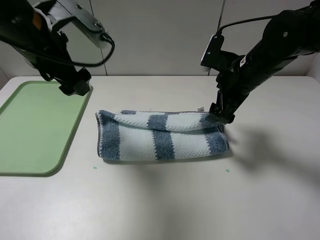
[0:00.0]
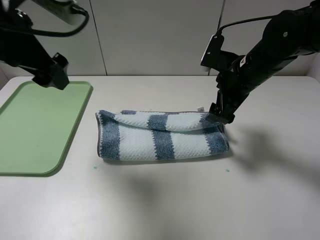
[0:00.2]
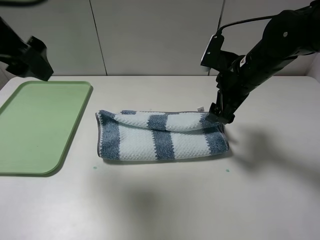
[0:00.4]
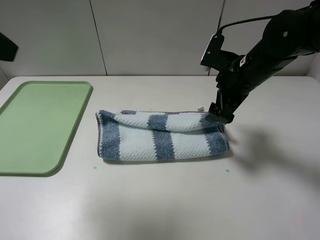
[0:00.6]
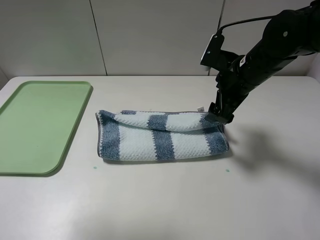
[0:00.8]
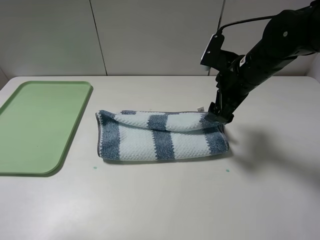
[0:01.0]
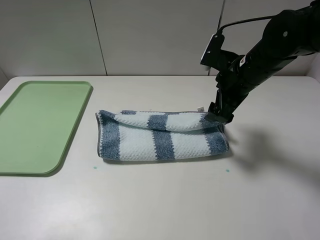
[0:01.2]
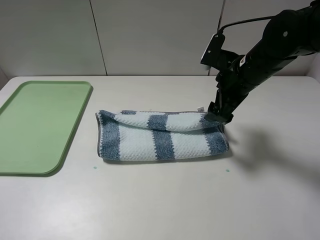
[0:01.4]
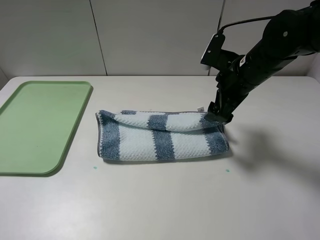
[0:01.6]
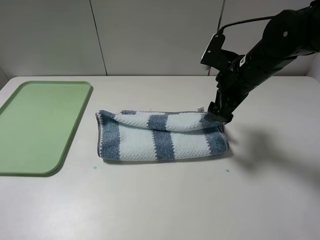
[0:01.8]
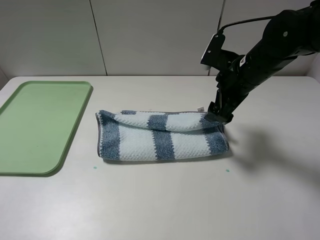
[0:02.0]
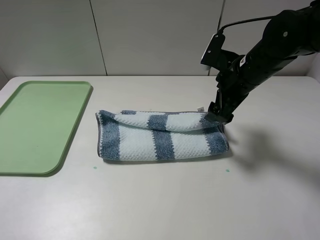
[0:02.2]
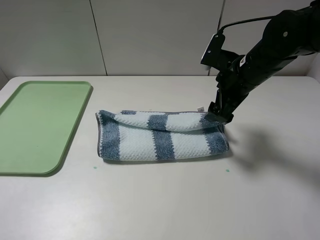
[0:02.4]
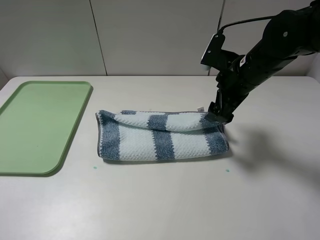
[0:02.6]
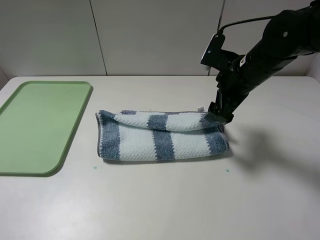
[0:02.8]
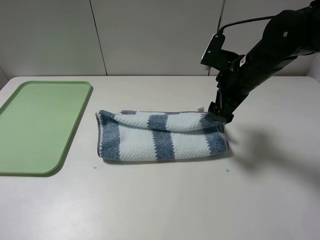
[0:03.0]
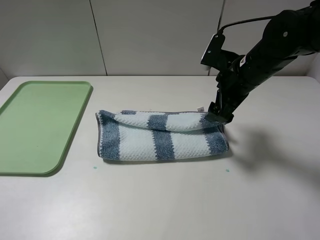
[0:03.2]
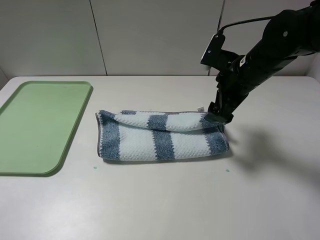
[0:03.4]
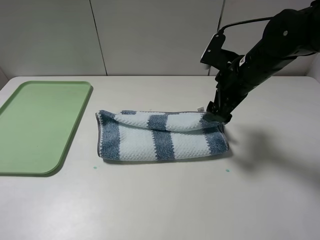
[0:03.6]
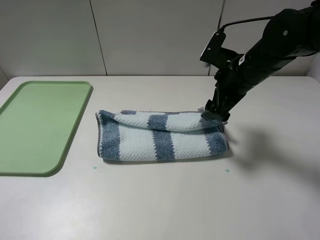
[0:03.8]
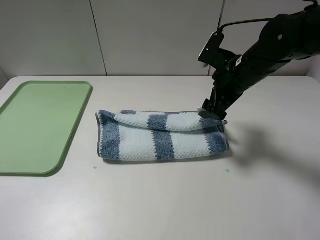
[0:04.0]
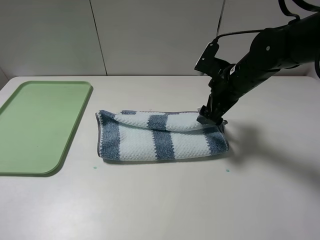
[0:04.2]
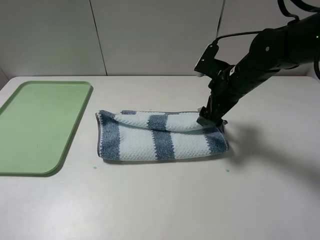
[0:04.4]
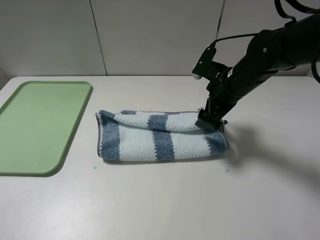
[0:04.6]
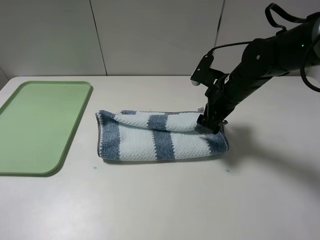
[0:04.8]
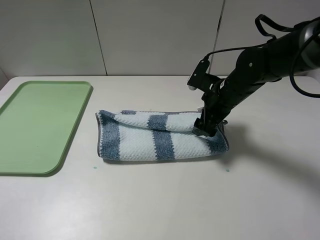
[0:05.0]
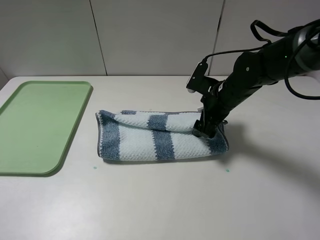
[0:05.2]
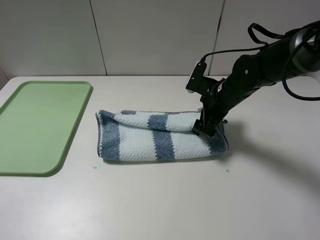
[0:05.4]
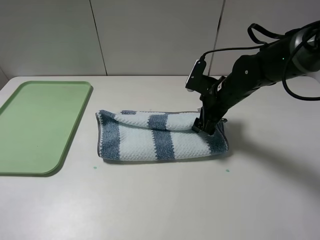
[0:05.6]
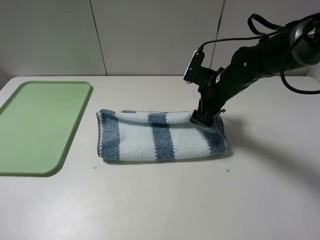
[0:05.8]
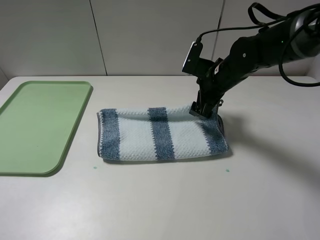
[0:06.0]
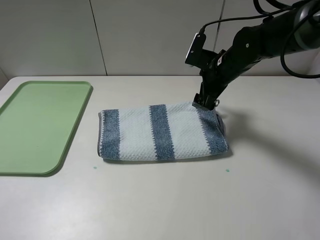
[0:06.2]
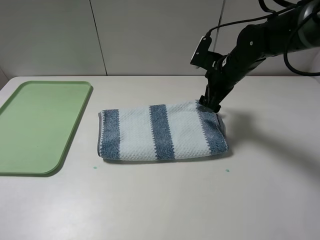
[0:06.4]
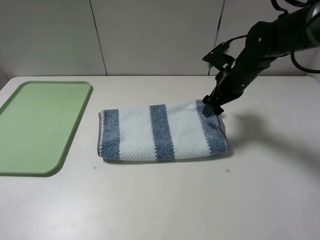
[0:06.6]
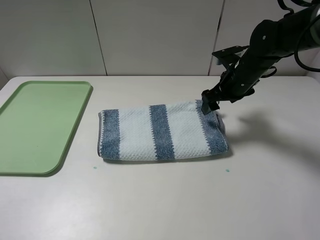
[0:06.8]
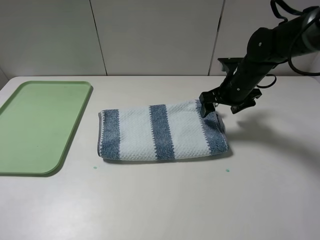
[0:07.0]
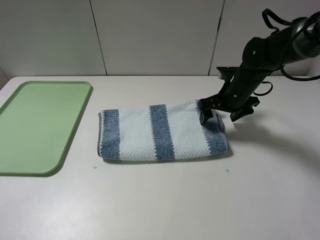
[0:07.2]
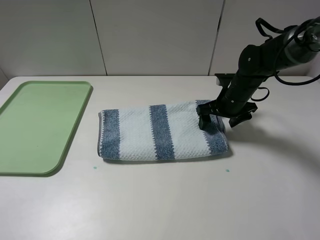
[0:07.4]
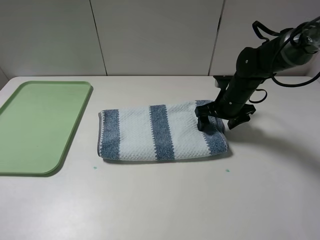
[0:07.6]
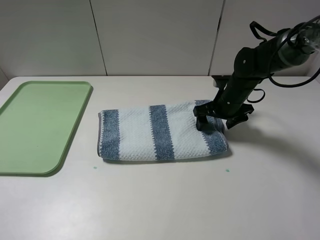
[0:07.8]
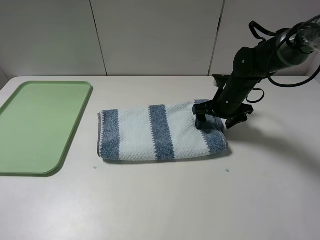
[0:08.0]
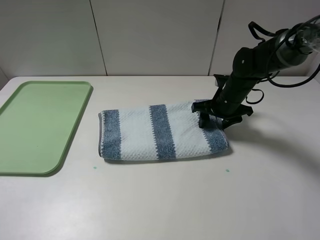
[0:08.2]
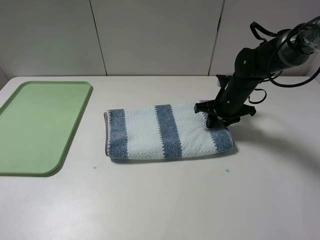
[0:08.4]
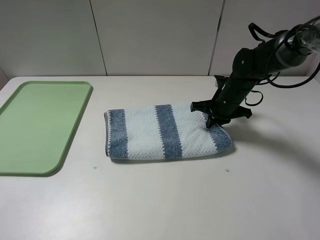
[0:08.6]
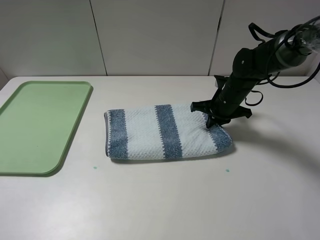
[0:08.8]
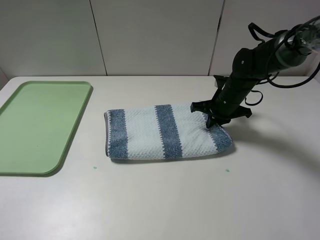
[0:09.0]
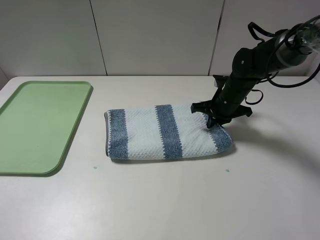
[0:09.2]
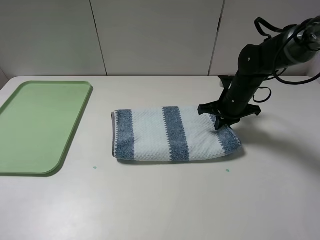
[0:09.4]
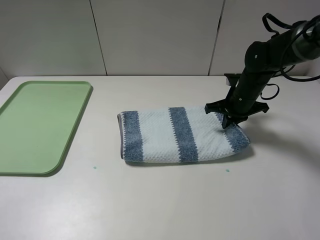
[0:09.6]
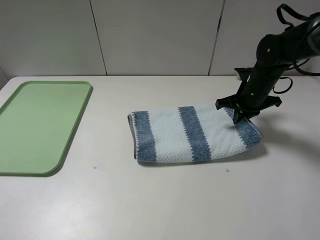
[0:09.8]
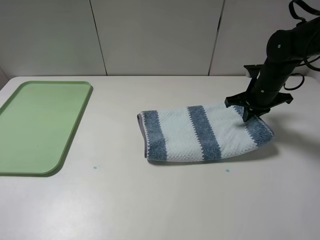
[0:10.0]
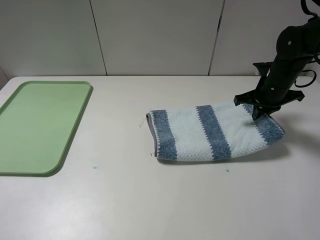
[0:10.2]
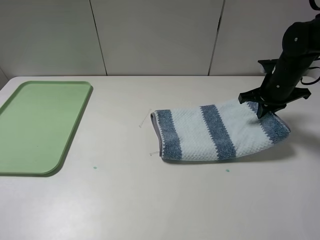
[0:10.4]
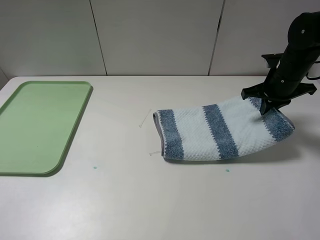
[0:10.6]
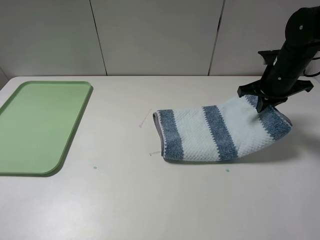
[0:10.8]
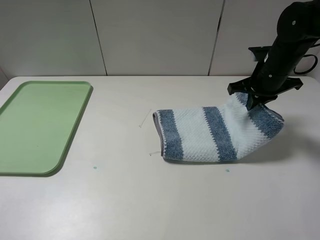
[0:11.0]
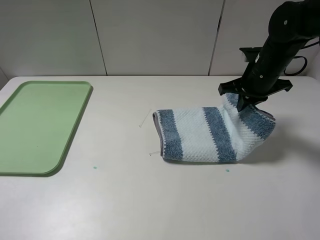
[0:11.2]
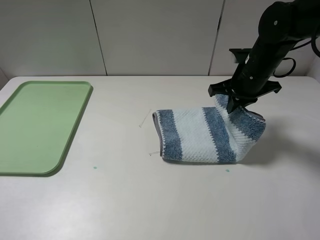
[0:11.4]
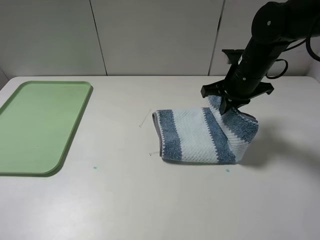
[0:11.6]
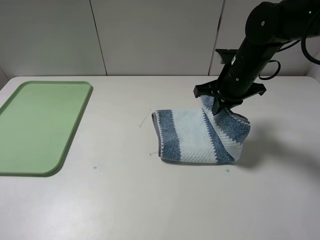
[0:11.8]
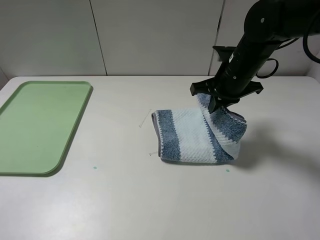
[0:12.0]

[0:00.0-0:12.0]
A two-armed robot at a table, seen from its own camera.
Step, 0:00.0 to 0:06.4: Fold the blue white towel upwards with the right gripper.
Step, 0:06.6 to 0:09.4: Grasp the blue white towel with the right gripper.
0:00.0 to 0:01.6: The left gripper travels backward and to the left by approximately 30 cm.
0:03.0 to 0:04.4: The grippers make only small movements.
0:04.4 to 0:06.0: The grippers move only a little.
0:06.0 to 0:07.6: The right gripper heads downward, covering approximately 5 cm.
0:07.6 to 0:09.0: The right gripper closes.
0:09.0 to 0:10.4: The right gripper heads to the right and upward, covering about 10 cm.
0:10.4 to 0:12.0: The right gripper shifts some 10 cm to the left.

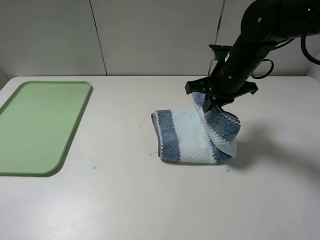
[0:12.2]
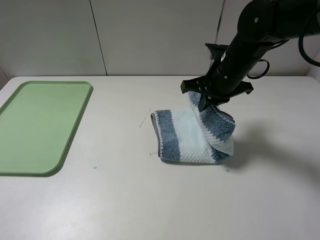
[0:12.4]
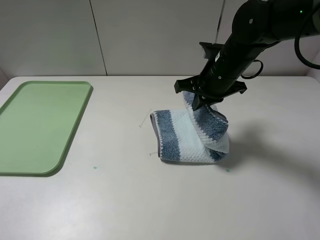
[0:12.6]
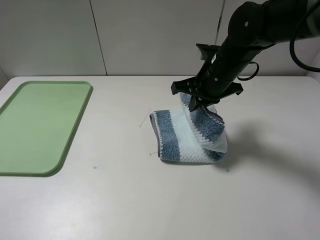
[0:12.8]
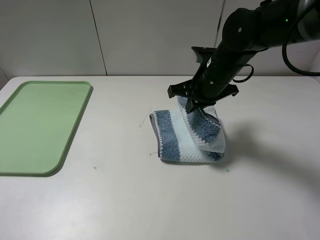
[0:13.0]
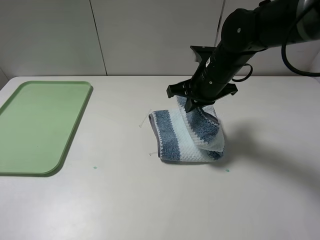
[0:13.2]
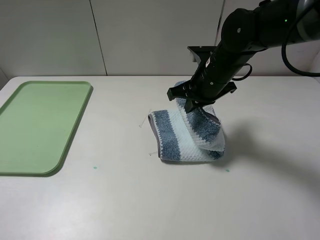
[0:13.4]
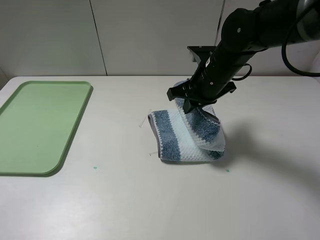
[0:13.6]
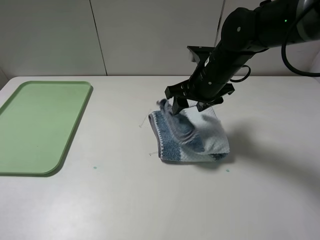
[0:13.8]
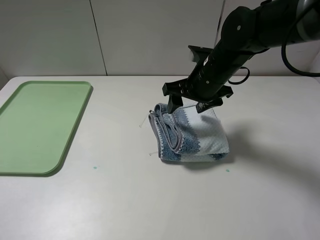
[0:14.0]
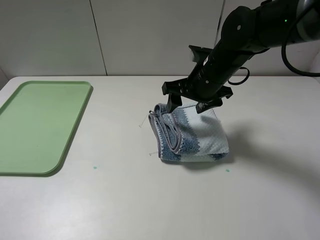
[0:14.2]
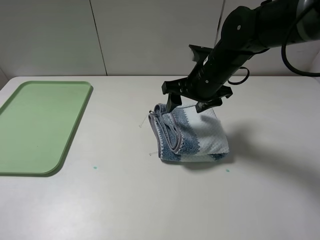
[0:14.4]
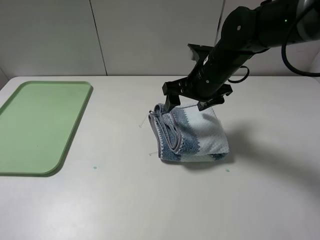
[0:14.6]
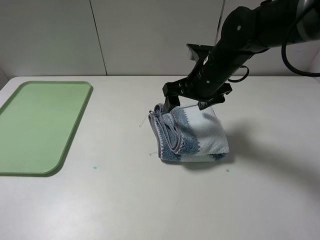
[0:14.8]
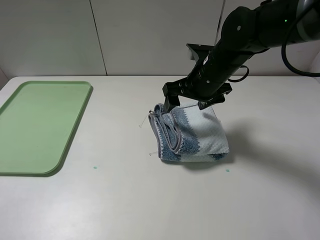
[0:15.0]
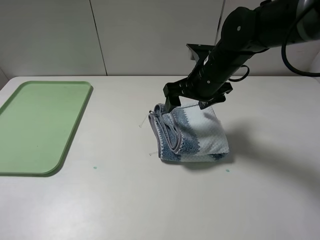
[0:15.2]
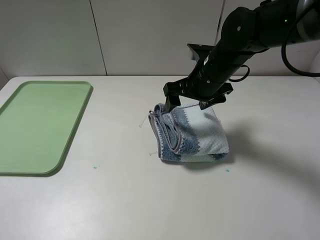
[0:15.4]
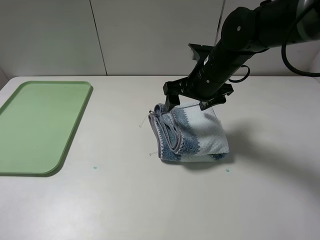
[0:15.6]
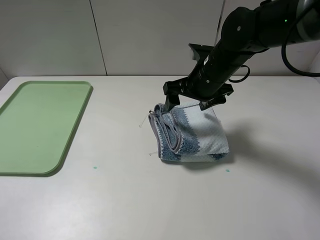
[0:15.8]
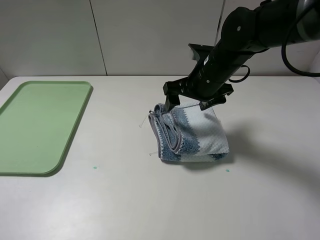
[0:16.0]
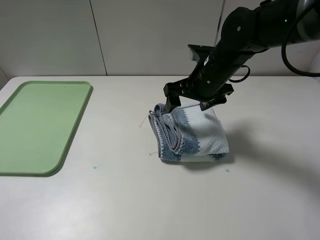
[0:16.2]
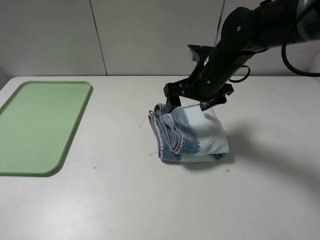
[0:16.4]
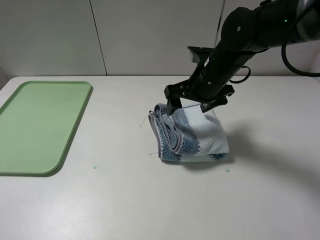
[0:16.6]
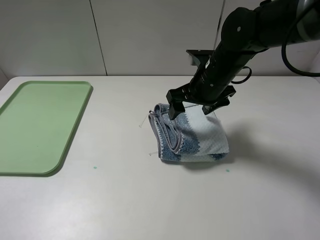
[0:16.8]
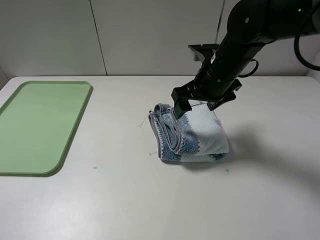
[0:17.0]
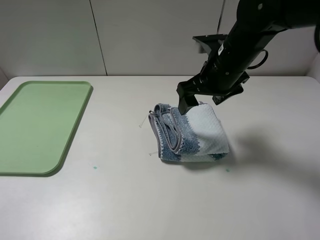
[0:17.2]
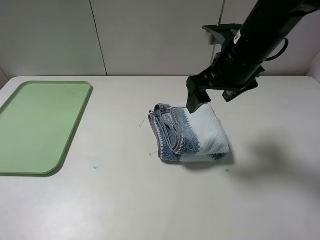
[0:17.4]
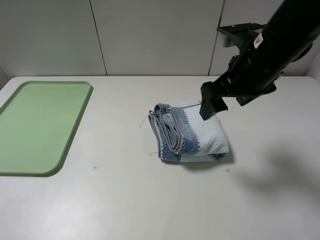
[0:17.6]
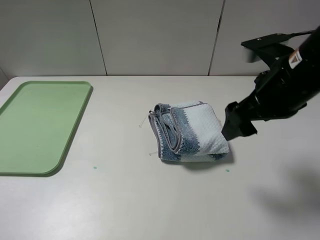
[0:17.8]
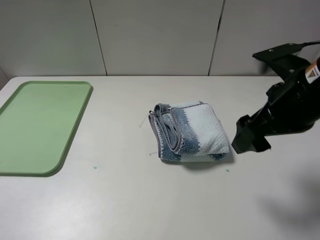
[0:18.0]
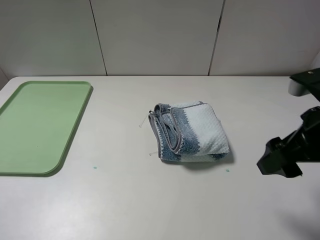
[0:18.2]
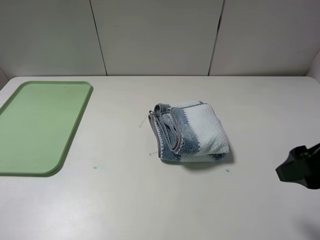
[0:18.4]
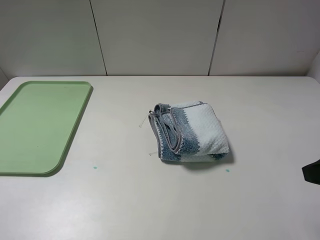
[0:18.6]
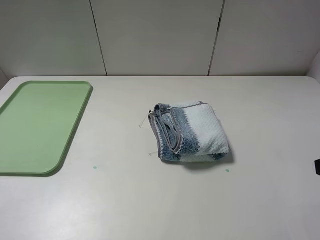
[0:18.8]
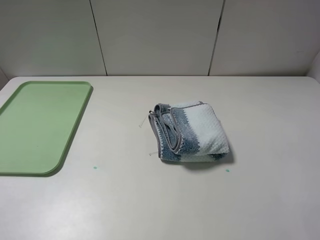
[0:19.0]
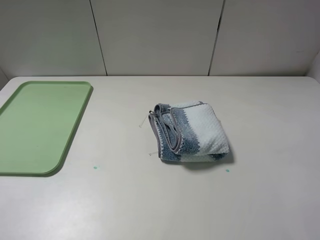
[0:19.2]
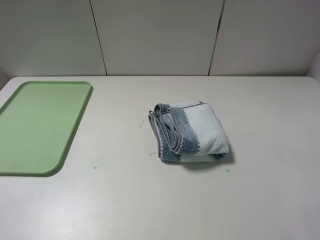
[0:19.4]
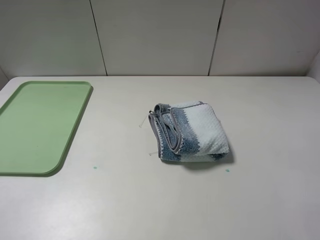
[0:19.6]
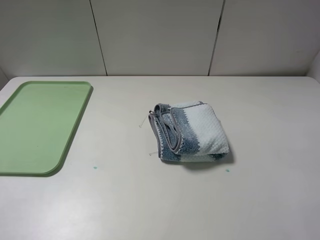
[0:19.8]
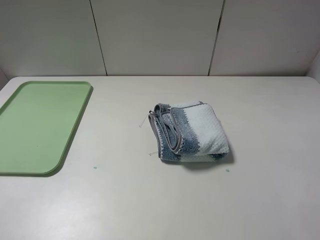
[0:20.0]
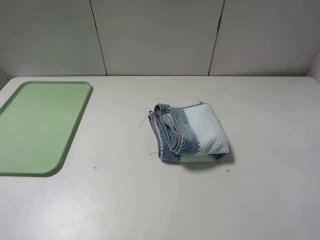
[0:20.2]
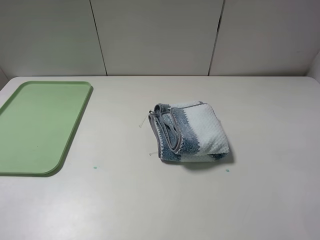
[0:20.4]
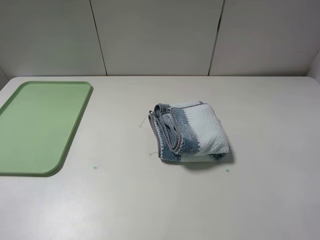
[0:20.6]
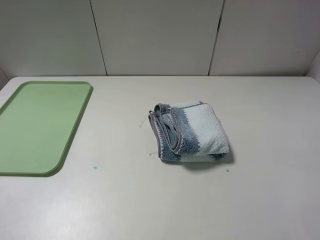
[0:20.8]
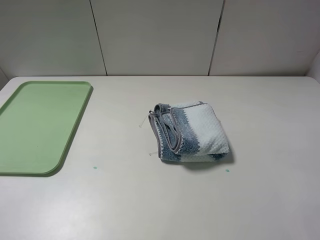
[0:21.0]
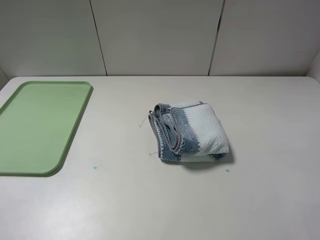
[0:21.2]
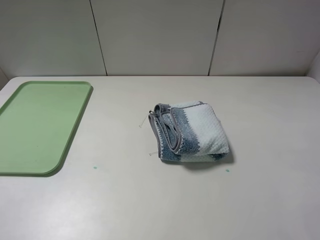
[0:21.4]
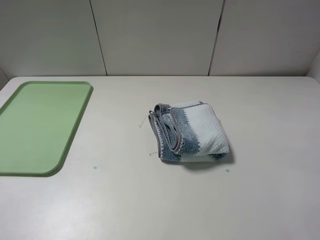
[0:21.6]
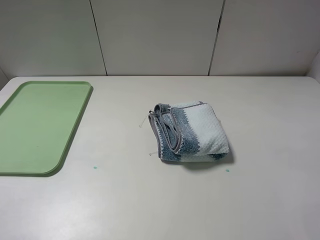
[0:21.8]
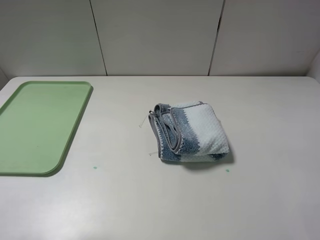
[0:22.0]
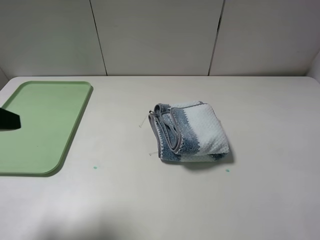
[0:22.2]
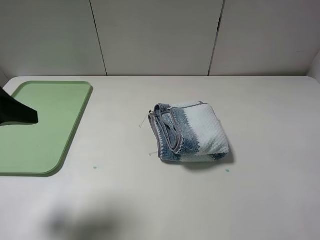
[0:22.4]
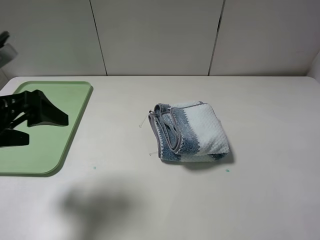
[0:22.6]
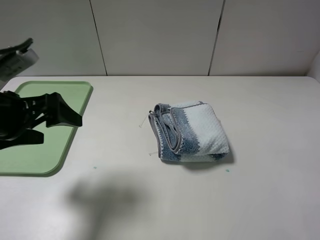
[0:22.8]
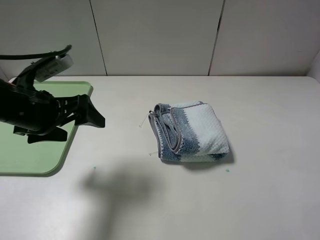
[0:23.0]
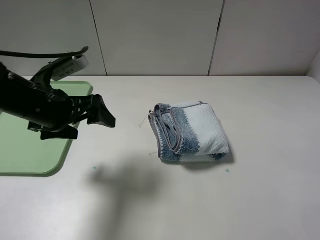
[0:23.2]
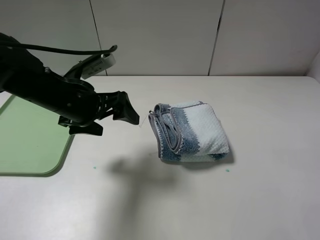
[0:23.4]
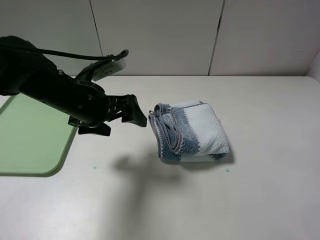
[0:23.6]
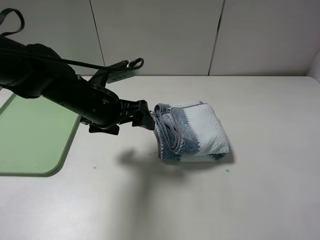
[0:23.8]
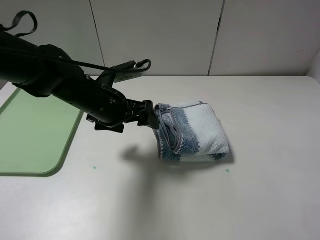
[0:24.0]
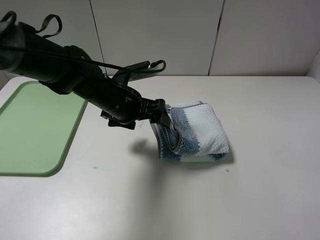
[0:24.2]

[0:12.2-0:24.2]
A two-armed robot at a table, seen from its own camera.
Step, 0:12.2 to 0:16.6: Fold the blue white towel from right to left with right gripper.
0:12.2 to 0:13.8: The right gripper opens.
0:13.8 to 0:15.2: The grippers make only small movements.
0:15.2 to 0:16.6: The two grippers keep their place.
0:16.6 to 0:18.2: The right gripper goes some 20 cm backward and to the right.
0:18.2 to 0:19.8: The right gripper is displaced backward and to the right by approximately 15 cm.
0:21.2 to 0:22.6: The left gripper goes roughly 15 cm forward.
0:22.6 to 0:24.2: The left gripper is displaced to the right, forward and downward by some 25 cm.
